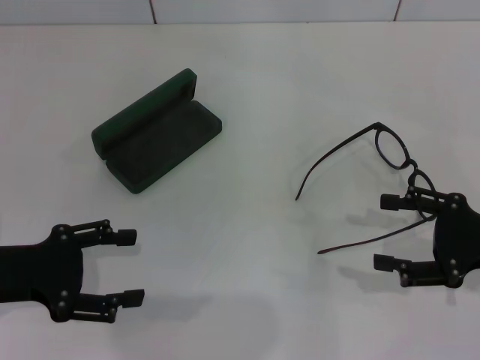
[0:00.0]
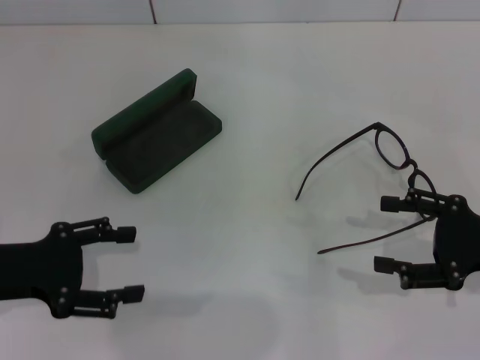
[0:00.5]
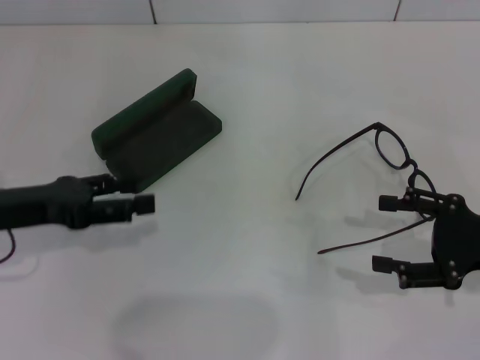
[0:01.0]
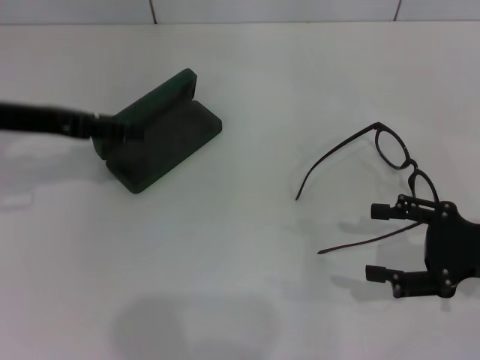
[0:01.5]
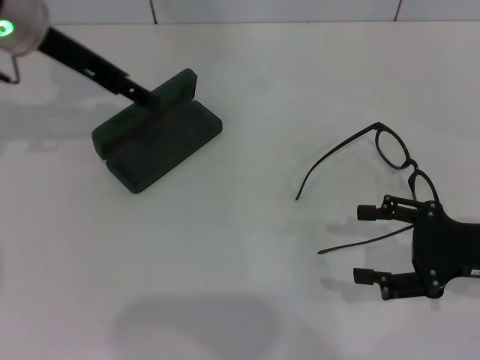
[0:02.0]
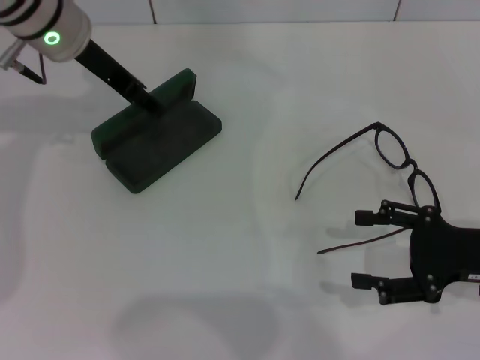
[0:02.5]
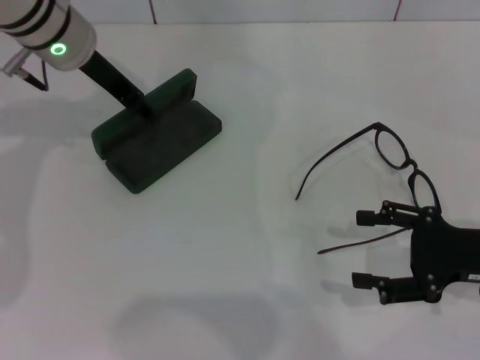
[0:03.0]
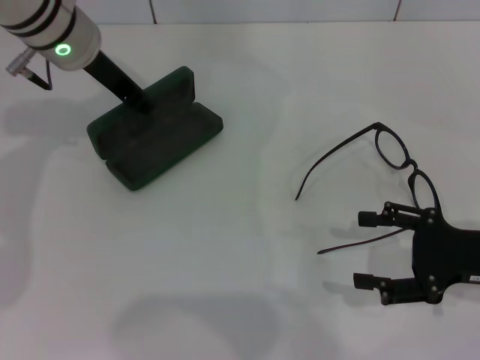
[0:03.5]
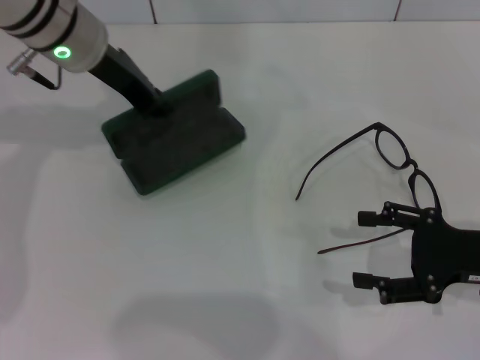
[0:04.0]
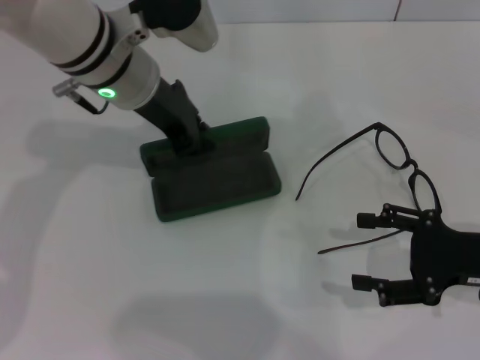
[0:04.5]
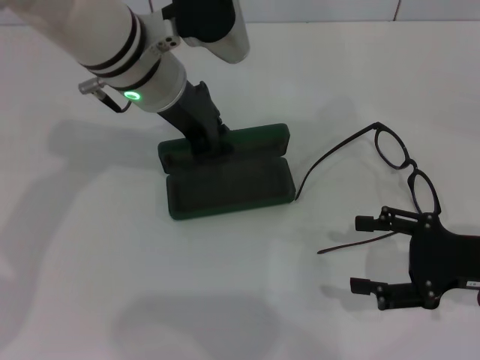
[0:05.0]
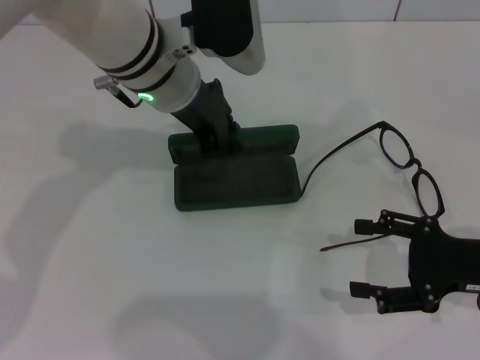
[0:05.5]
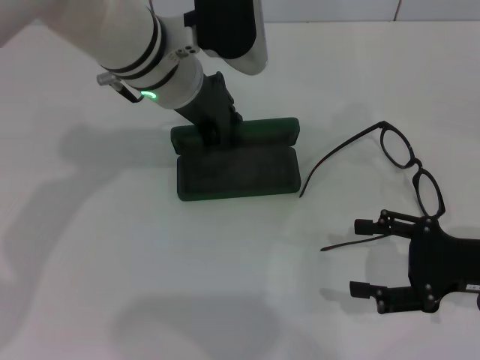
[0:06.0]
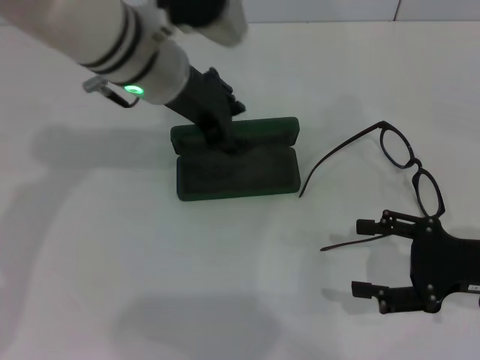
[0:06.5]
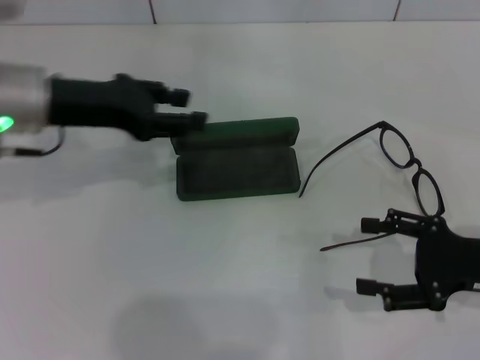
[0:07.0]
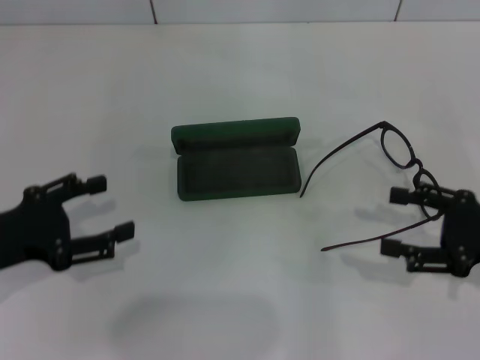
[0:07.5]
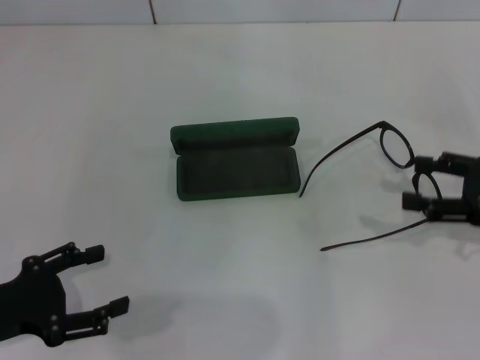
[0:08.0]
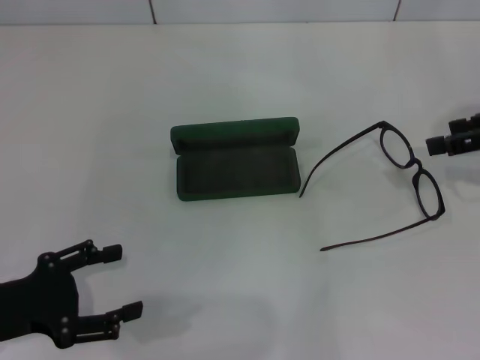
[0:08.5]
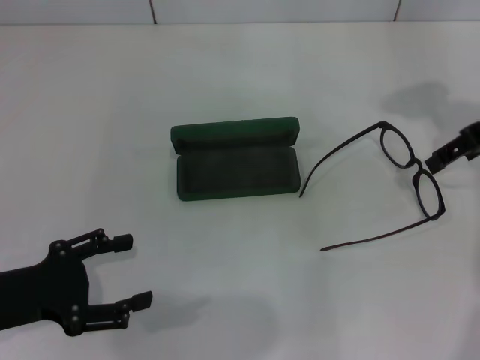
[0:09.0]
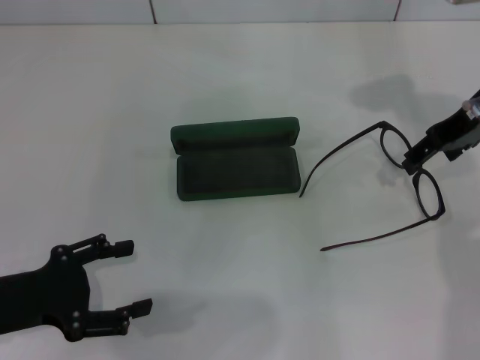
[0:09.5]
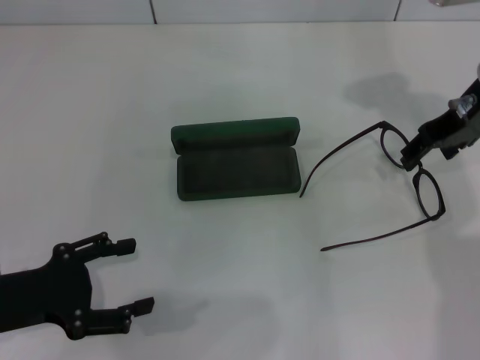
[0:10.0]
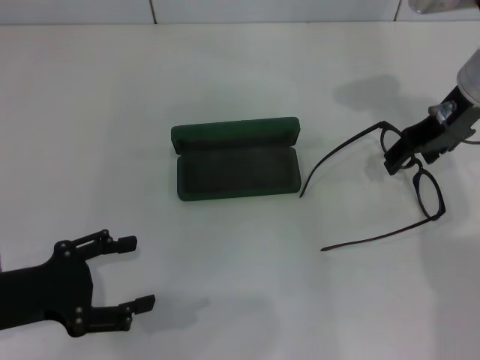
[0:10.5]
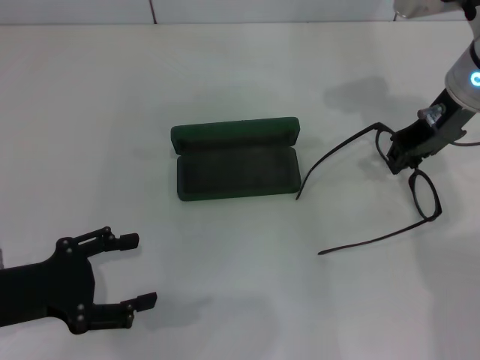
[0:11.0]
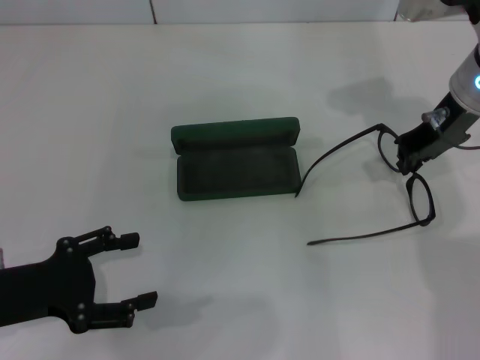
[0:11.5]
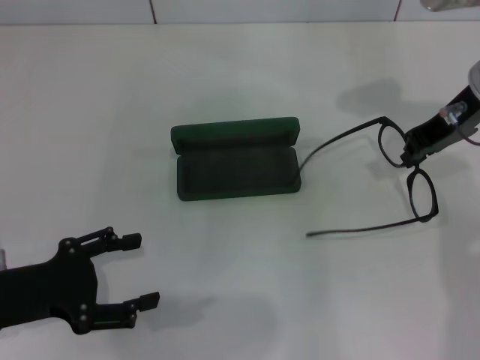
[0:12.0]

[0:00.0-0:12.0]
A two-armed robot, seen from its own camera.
Step, 0:00.0 to 0:03.5: Grab the glasses case with your left hand.
Step, 0:04.0 to 0:06.0: Place the glasses case in the center of the table with your left hand.
Step, 0:06.5 to 0:11.0: Grab the eyeglass frame with your right hand.
0:00.0 to 0:02.0: The left gripper heads forward, upward and to the right, covering approximately 25 cm.
0:02.0 to 0:04.0: The left gripper ends up approximately 5 cm from where it was, and closes up.
0:04.0 to 0:06.0: The left gripper shifts approximately 10 cm to the right.
0:06.0 to 0:08.0: The right gripper changes place by roughly 10 cm. The left gripper goes some 35 cm to the left, backward and downward, and opens.
0:08.0 to 0:10.0: The right gripper heads forward, to the left and upward, covering about 20 cm.
0:10.0 to 0:12.0: The right gripper closes up.

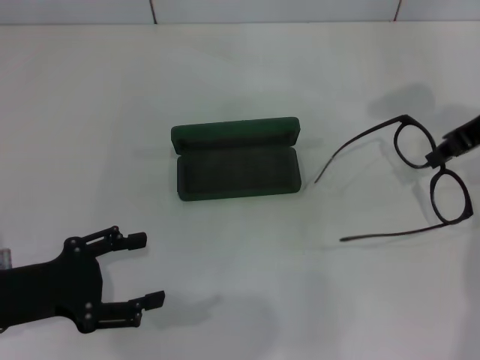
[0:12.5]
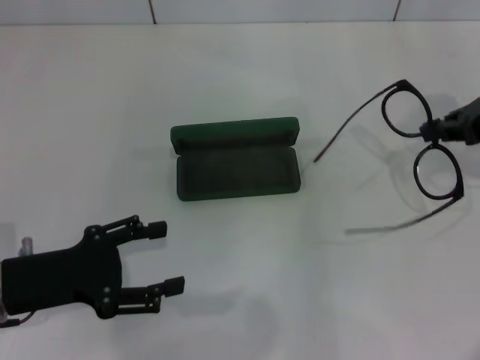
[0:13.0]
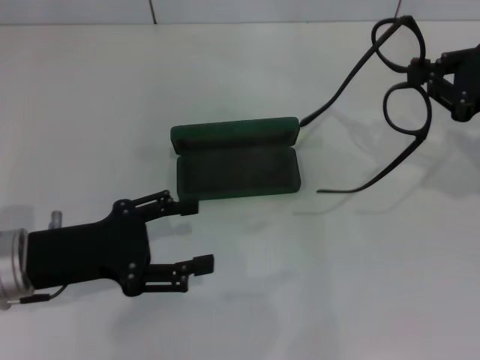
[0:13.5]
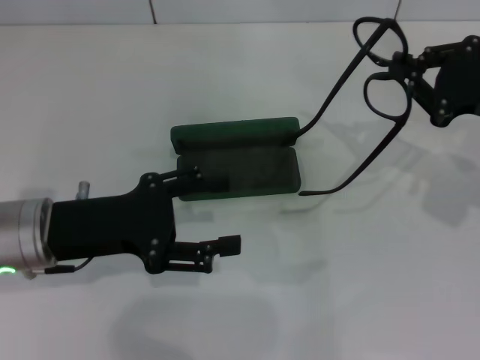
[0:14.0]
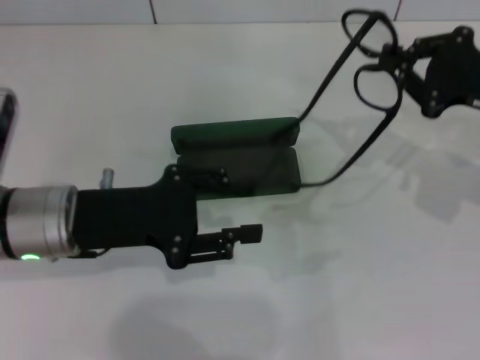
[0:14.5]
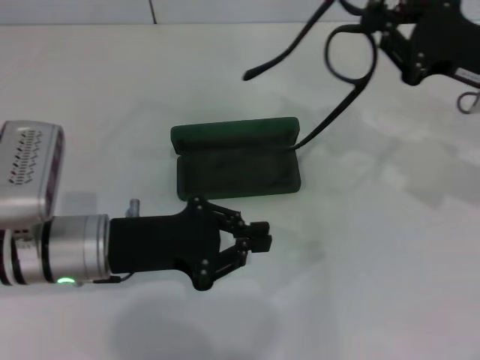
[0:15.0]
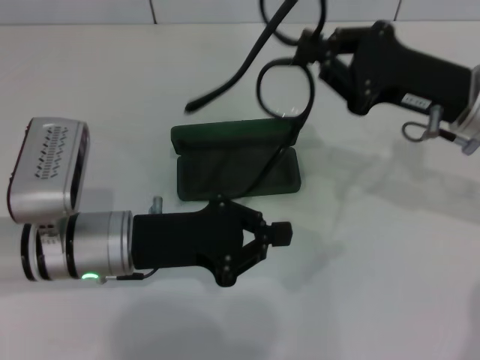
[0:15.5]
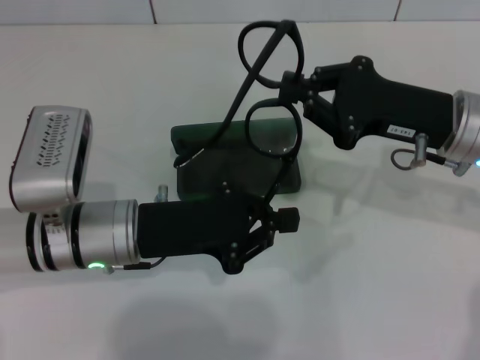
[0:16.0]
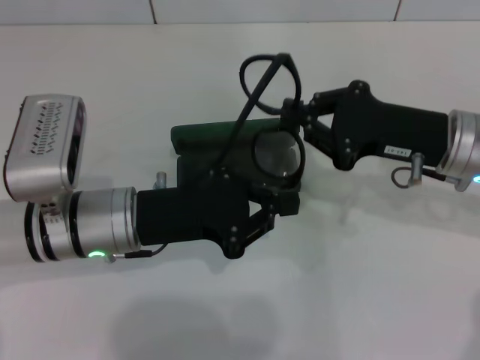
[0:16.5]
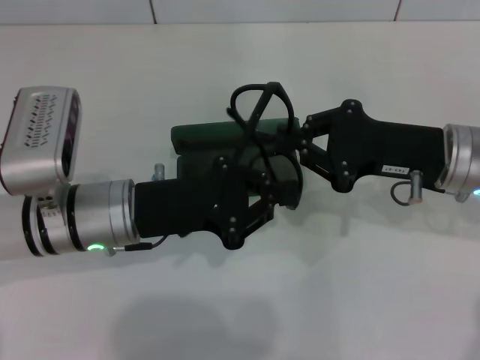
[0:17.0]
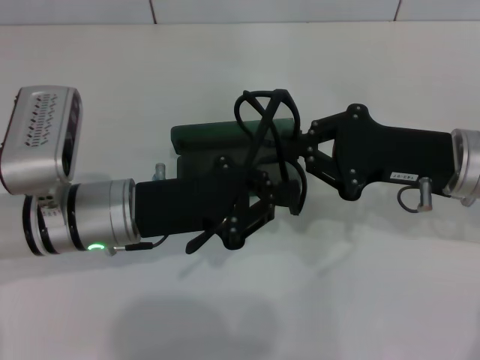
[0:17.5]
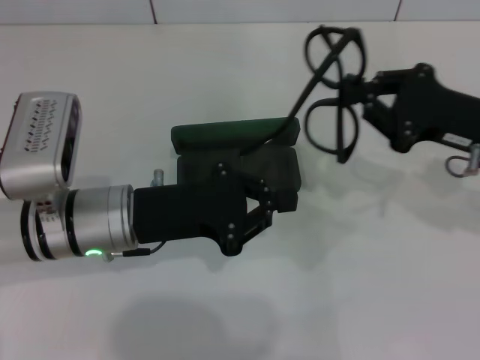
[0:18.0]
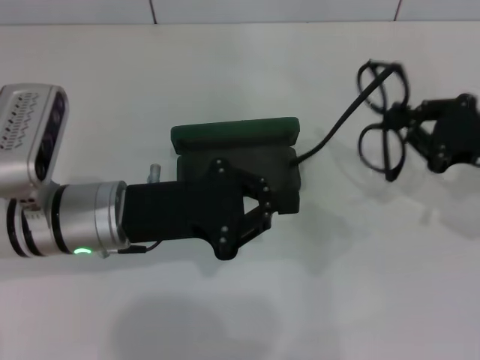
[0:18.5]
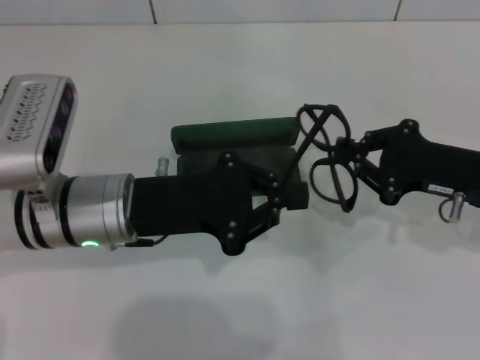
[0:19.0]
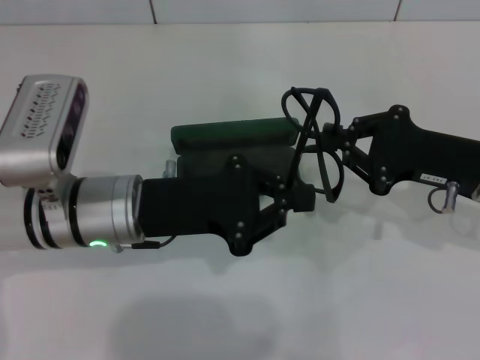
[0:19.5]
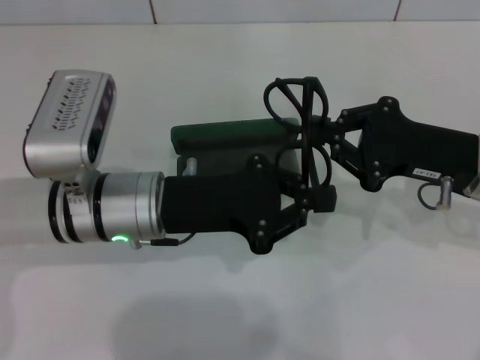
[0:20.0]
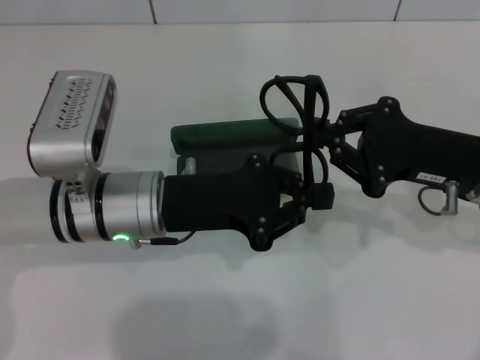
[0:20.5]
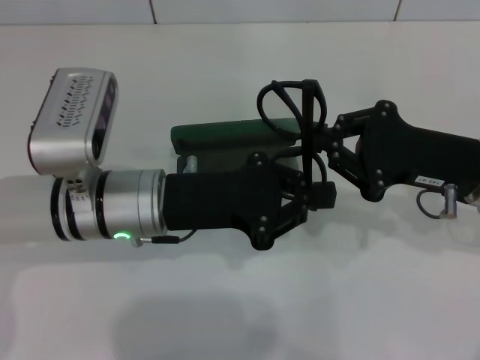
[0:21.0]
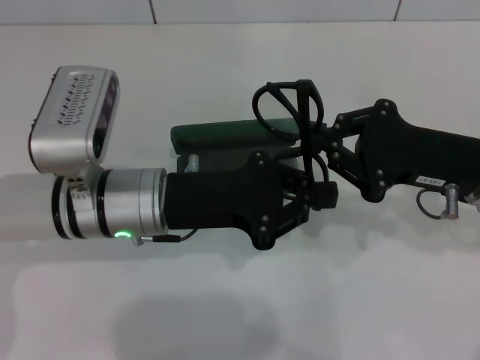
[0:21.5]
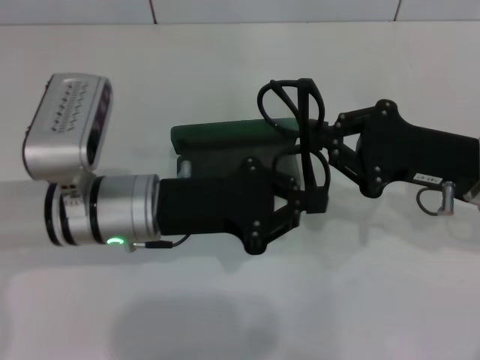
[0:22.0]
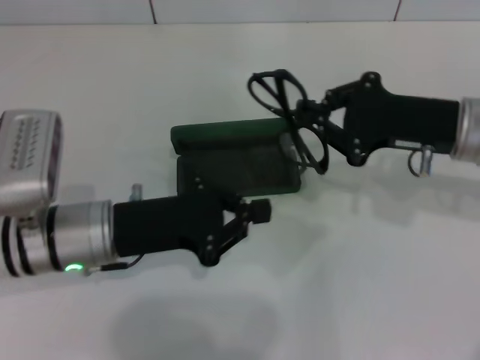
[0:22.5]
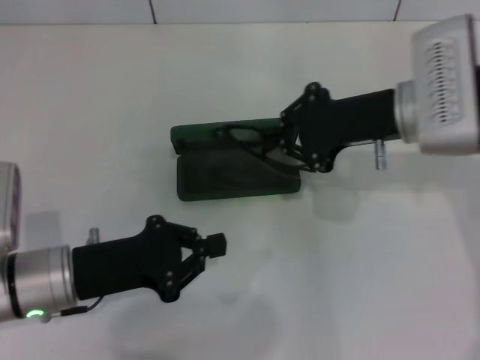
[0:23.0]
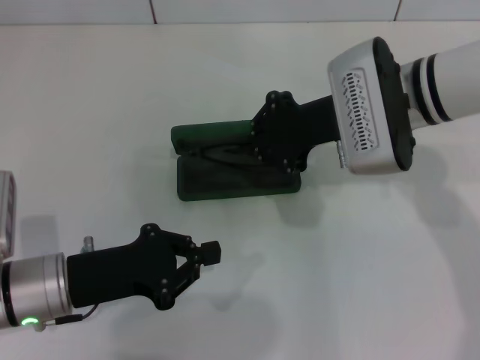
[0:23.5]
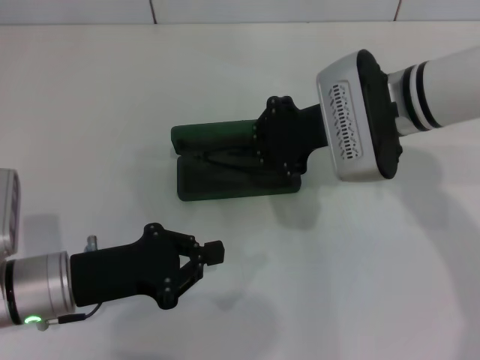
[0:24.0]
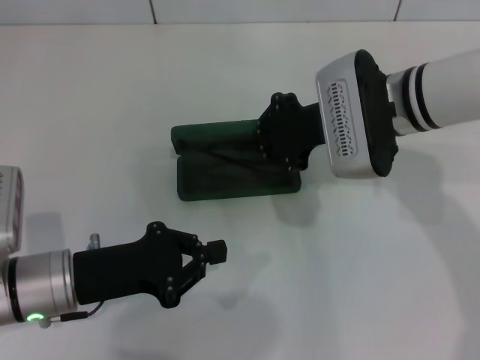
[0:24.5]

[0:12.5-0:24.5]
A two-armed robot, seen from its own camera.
Step, 0:12.5 to 0:21.0: Fold the frame with your left hand.
0:12.5 to 0:14.5: The left gripper moves to the right and forward, approximately 10 cm. Meanwhile the right gripper shifts by roughly 5 cm.
0:14.5 to 0:16.5: The left gripper moves some 5 cm, and closes, while the right gripper is displaced to the left by approximately 10 cm.
0:16.5 to 0:18.5: The right gripper is displaced to the right by some 10 cm.
0:18.5 to 0:20.5: The right gripper travels to the left by roughly 5 cm.
0:20.5 to 0:22.5: The left gripper moves some 5 cm.
0:22.5 to 0:24.5: The right gripper moves to the left, some 10 cm. Meanwhile the left gripper shifts by roughly 5 cm.

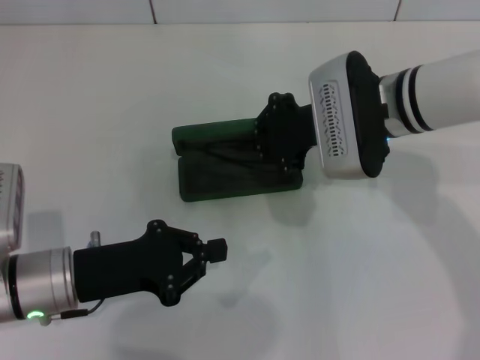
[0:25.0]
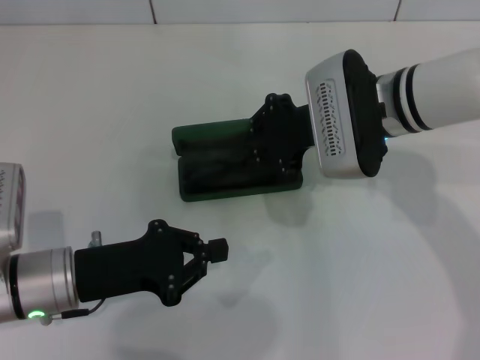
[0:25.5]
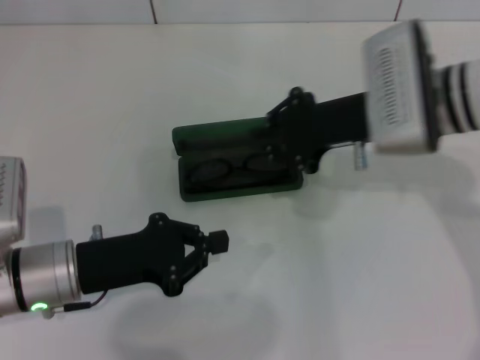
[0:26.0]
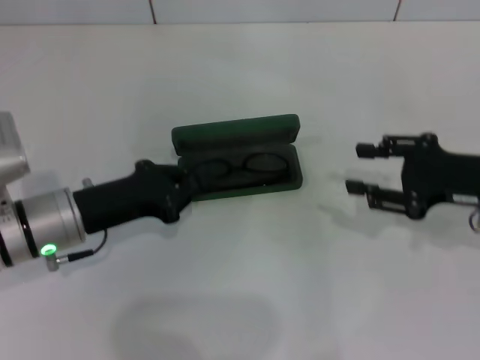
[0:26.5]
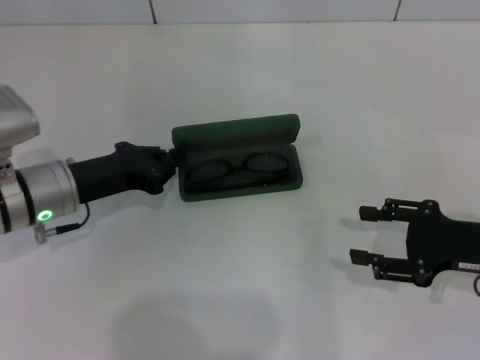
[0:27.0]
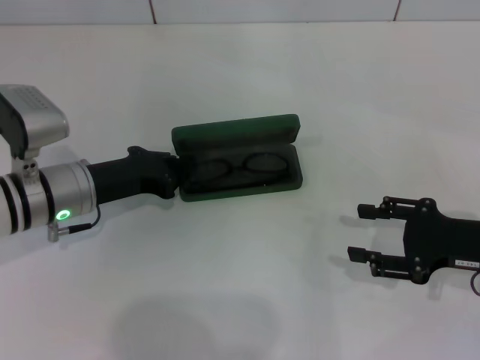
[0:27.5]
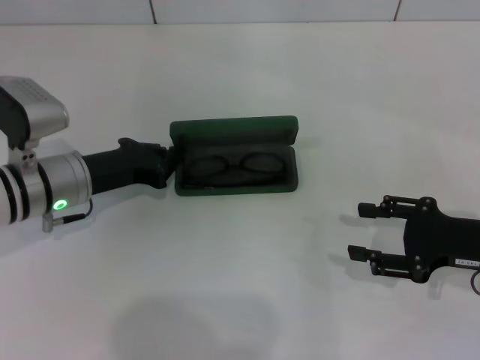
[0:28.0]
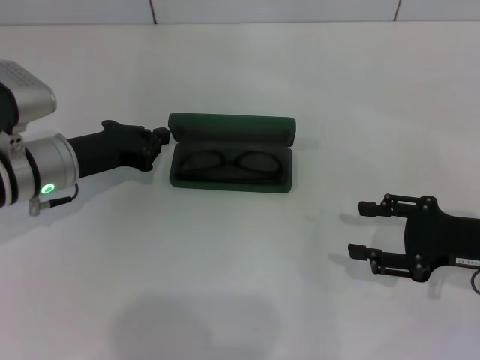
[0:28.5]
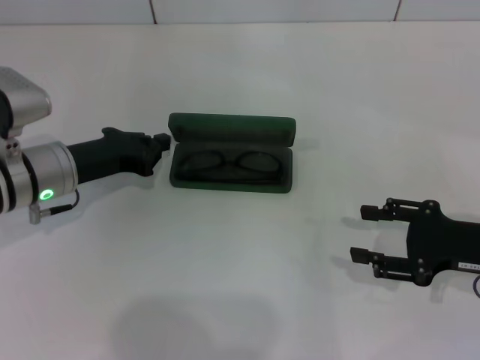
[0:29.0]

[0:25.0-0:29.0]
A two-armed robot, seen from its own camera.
0:25.0 to 0:27.0: The right gripper goes roughly 20 cm to the right, backward and downward, and opens up, while the left gripper is displaced forward by roughly 10 cm.
0:27.0 to 0:29.0: The grippers move only a little.
